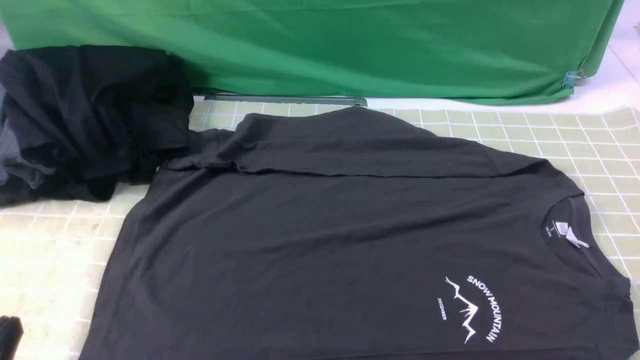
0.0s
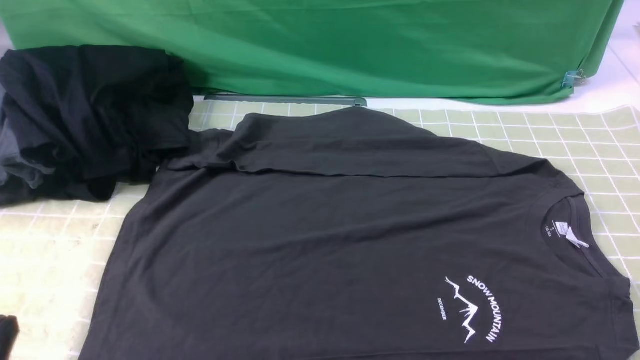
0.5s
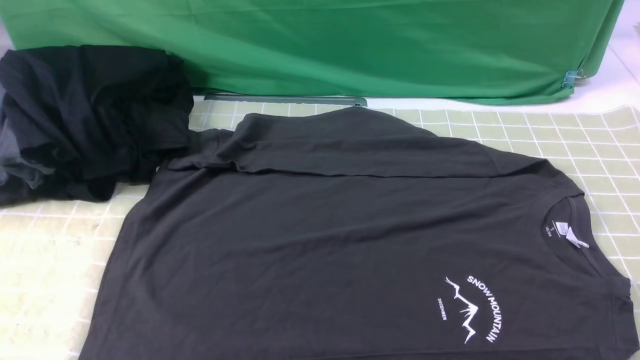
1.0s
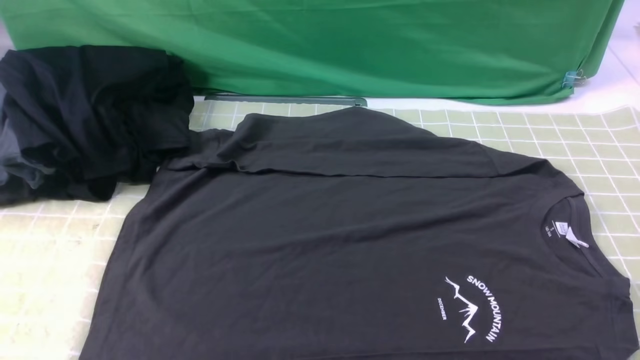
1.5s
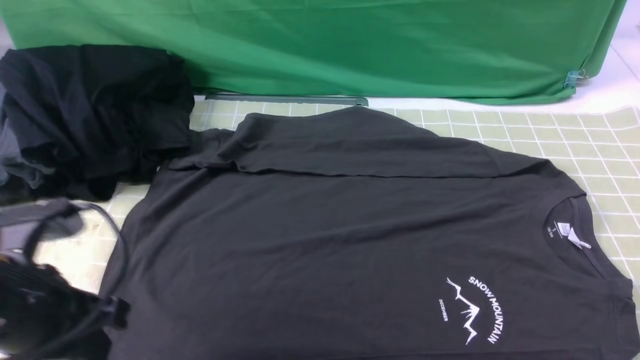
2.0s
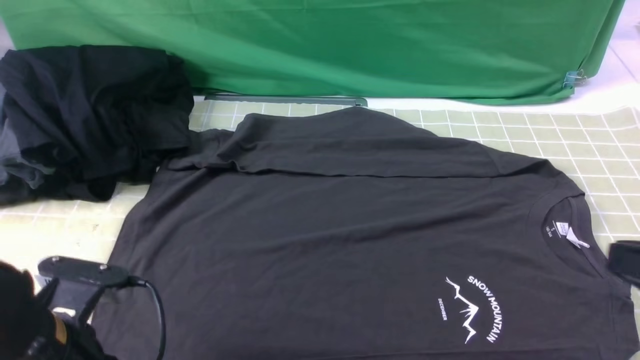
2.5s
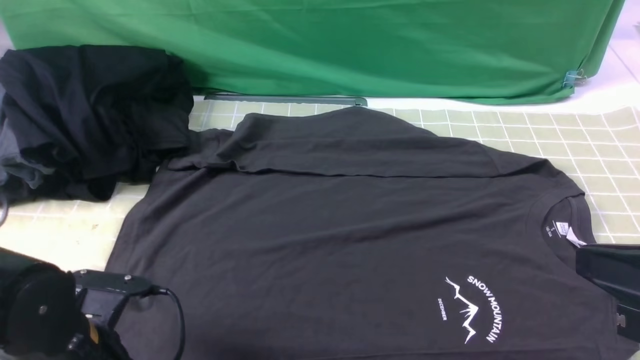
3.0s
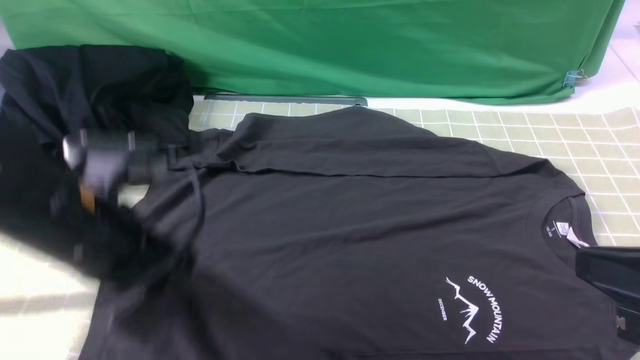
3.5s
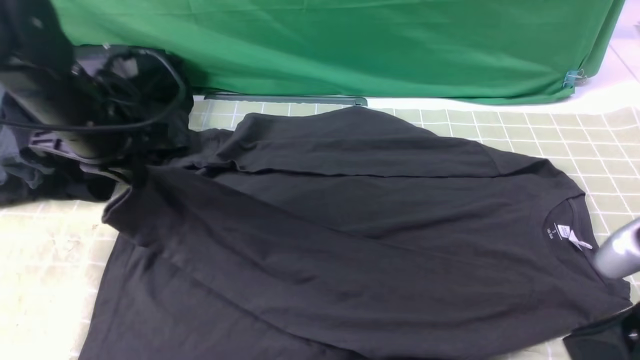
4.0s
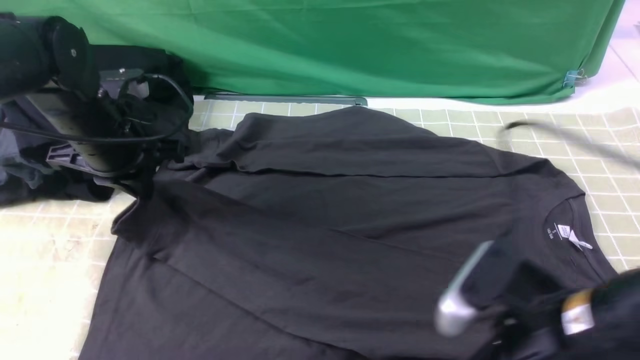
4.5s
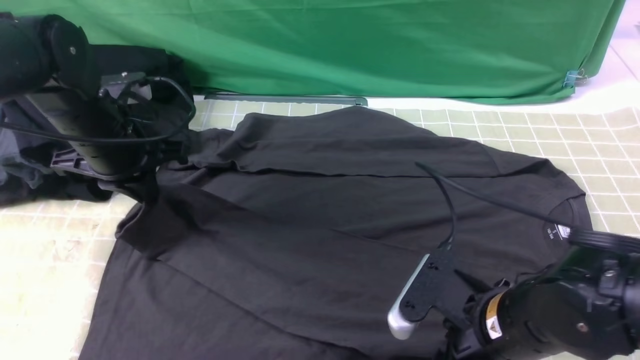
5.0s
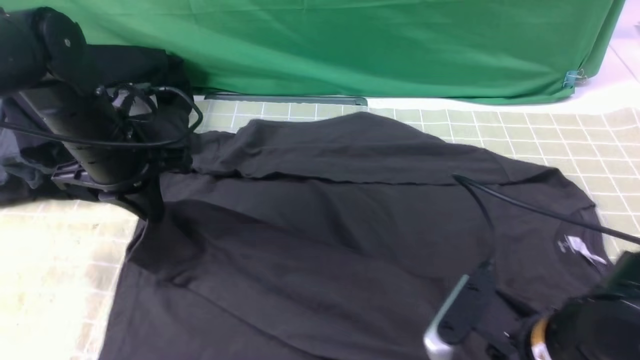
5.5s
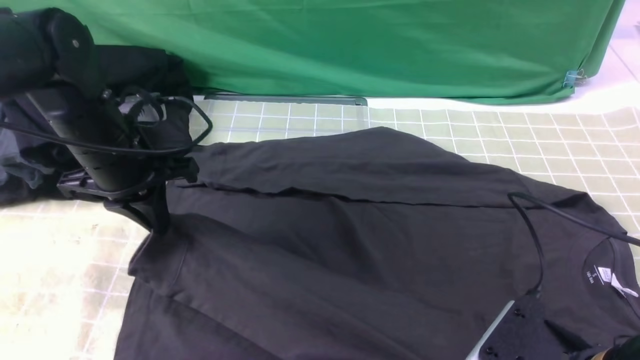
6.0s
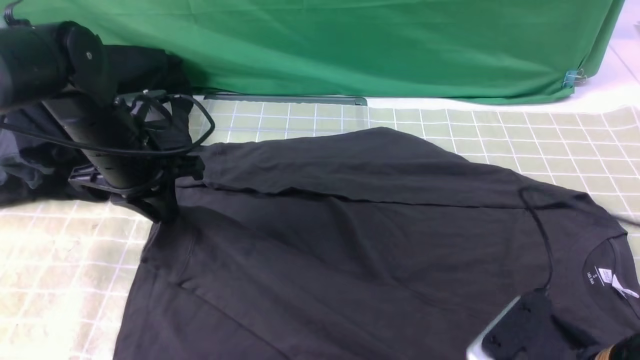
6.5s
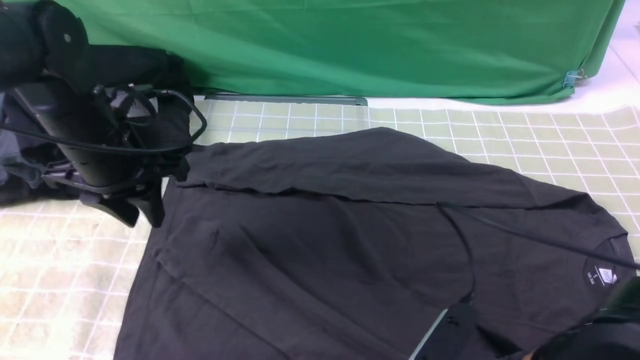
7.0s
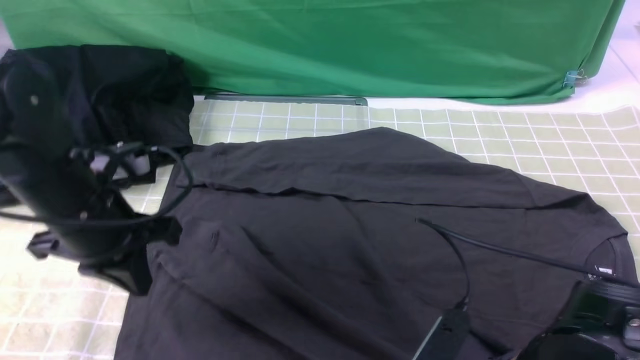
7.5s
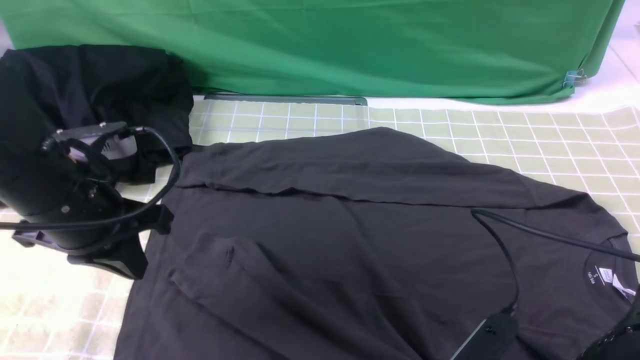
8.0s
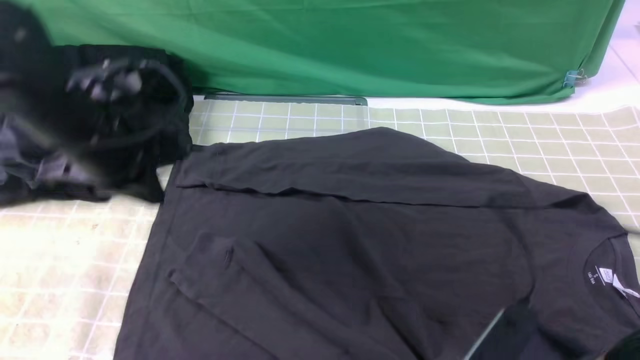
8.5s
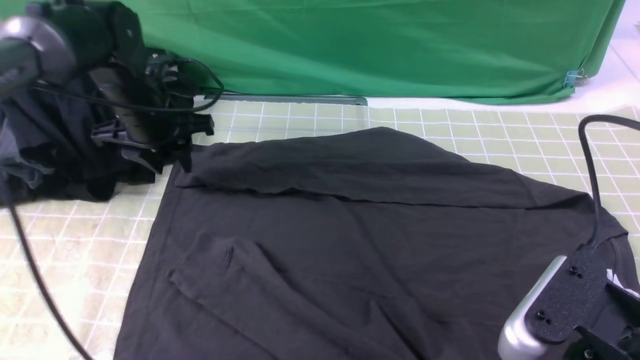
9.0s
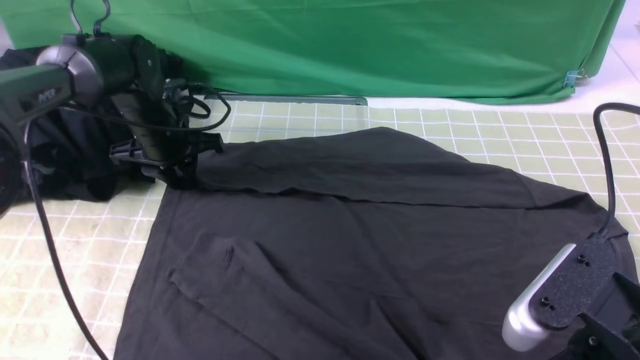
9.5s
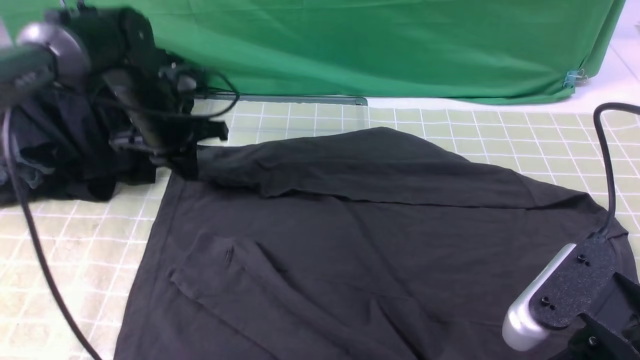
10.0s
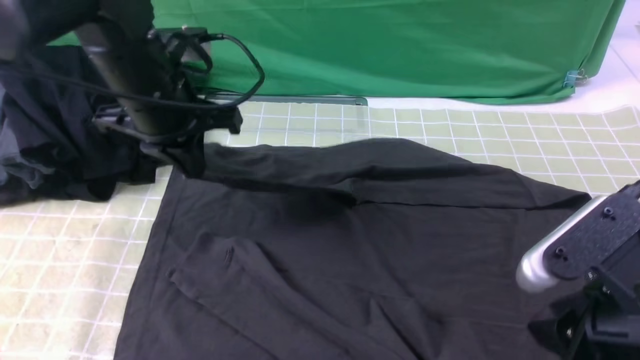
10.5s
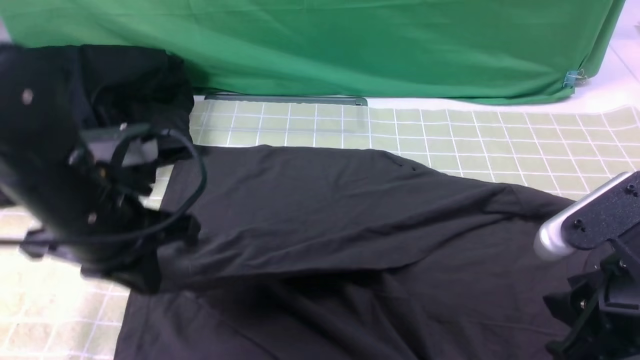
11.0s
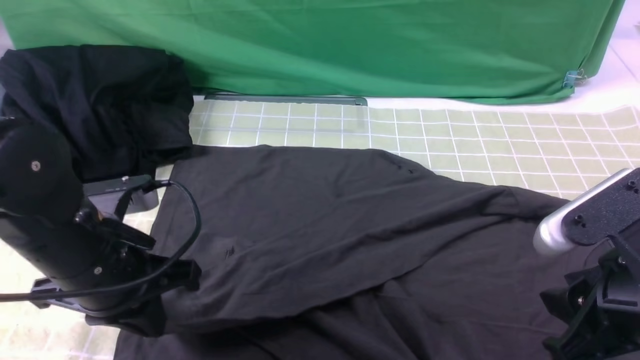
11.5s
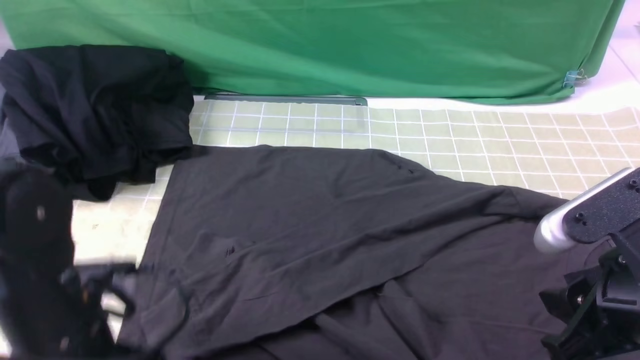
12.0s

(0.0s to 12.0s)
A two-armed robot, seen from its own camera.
Step, 0.0s - 3.0s: use the left arm to clamp the cuff closest to it.
Step, 3.5s - 6.5s: use the left arm to drag and place the cuff at the centered position on the left edge of the fabric.
Step, 7.0s - 9.5s: use the left arm to clamp the cuff farthest from it.
Step, 10.0s - 11.5s: use the left arm to drag and drop the cuff onto the cuff closest to the left arm.
0.0s - 2.0s: The left gripper travels forward and upward by some 15 cm. The right gripper shifts some 5 cm upward.
2.0s - 4.0s: The left gripper heads forward, covering approximately 20 cm, and opens, then closes again, while the right gripper is displaced to the left and forward by some 10 cm.
4.0s - 6.0s: The right gripper moves downward, roughly 10 cm, and opens, then closes once more.
6.0s - 8.0s: The right gripper opens, then closes again. The left gripper shifts about 10 cm backward, and opens and closes again.
8.0s - 10.0s: The left gripper goes roughly 20 cm forward, and opens, then closes once more. Meanwhile the right gripper travels upward by about 5 cm.
10.0s - 12.0s: The left gripper goes some 25 cm backward, and opens.

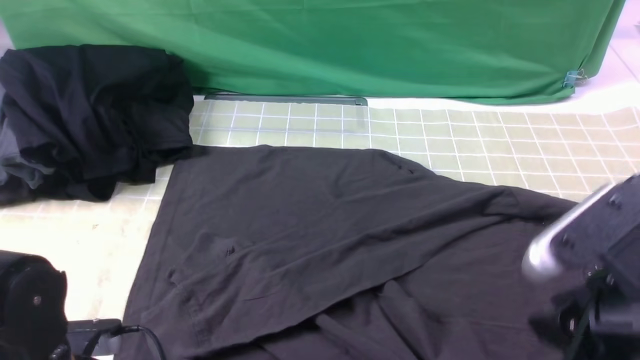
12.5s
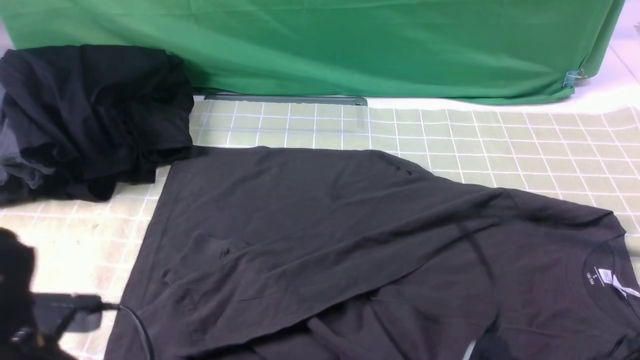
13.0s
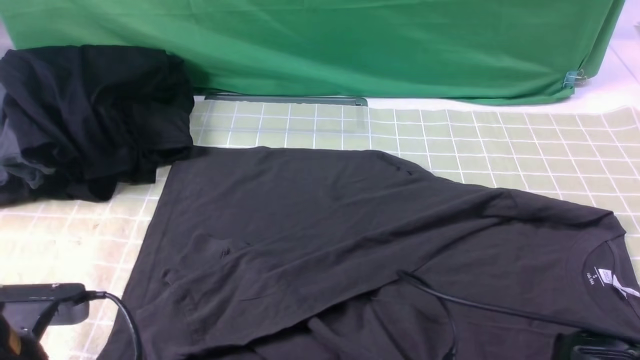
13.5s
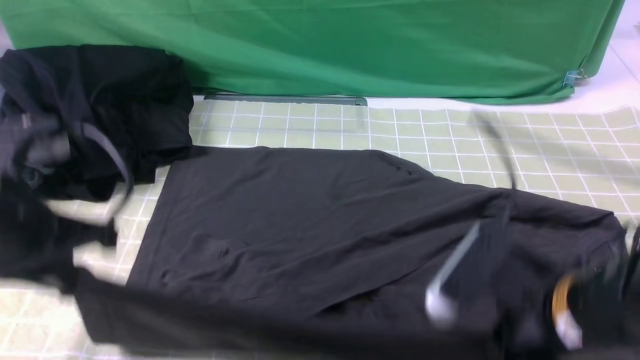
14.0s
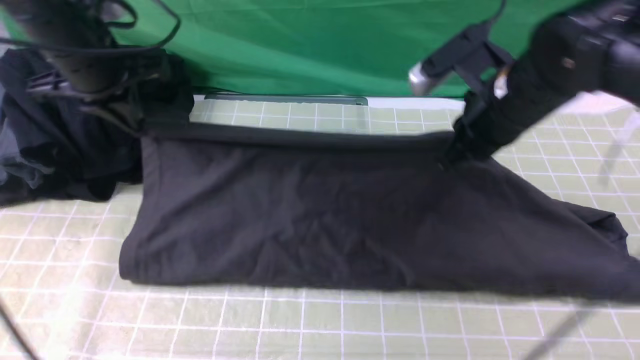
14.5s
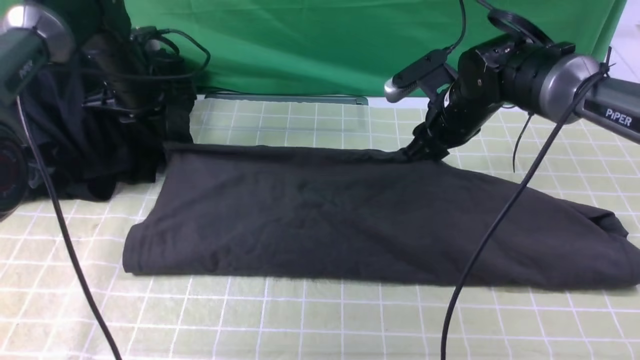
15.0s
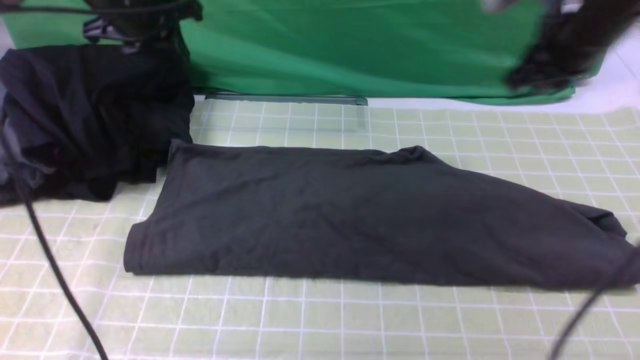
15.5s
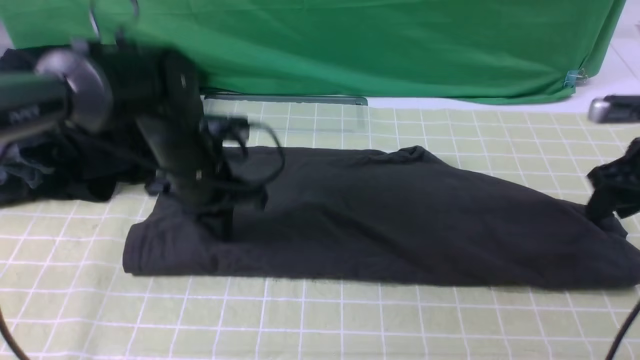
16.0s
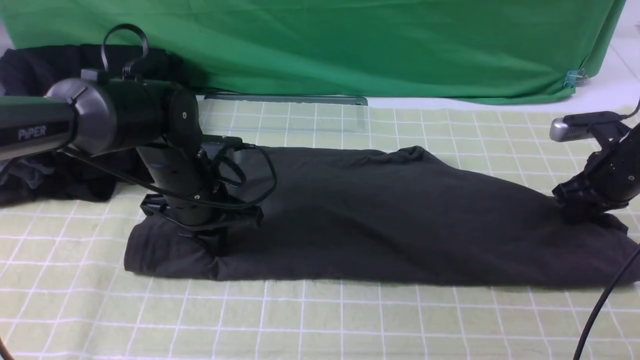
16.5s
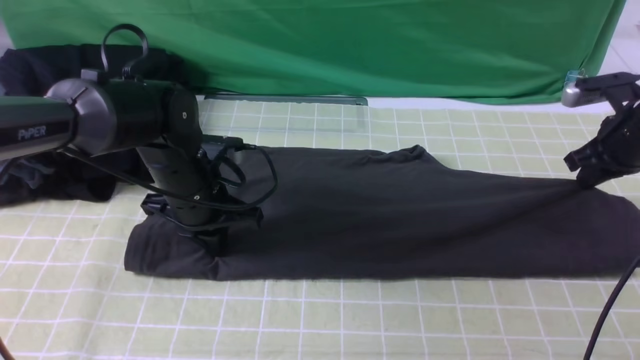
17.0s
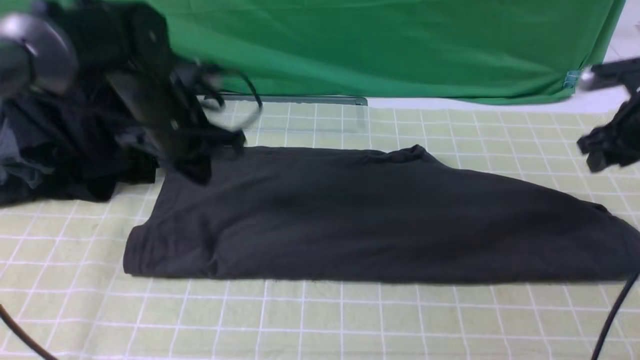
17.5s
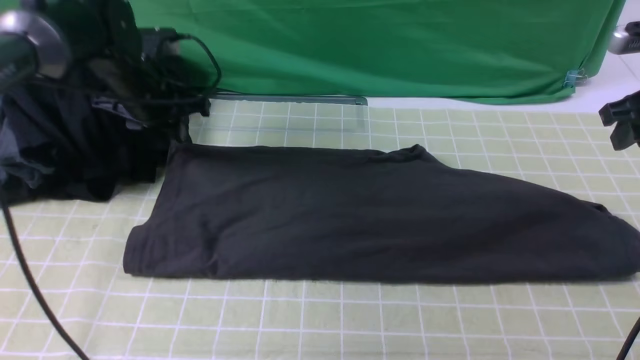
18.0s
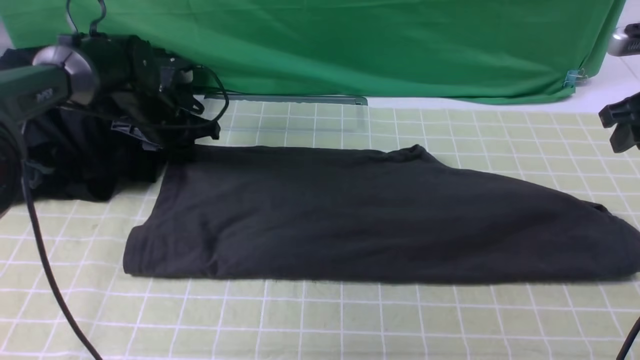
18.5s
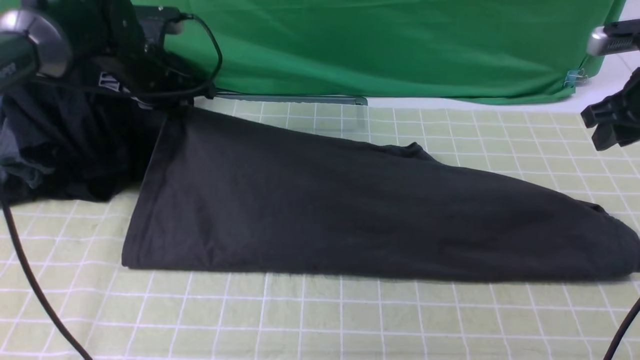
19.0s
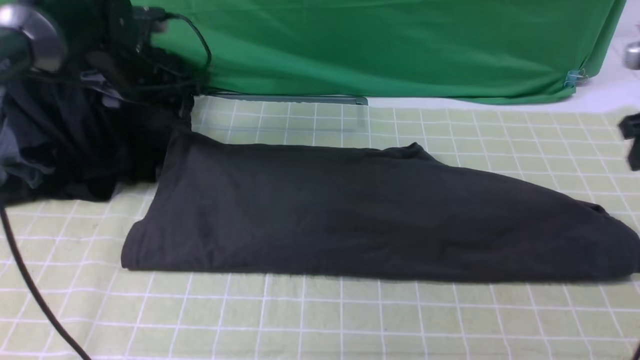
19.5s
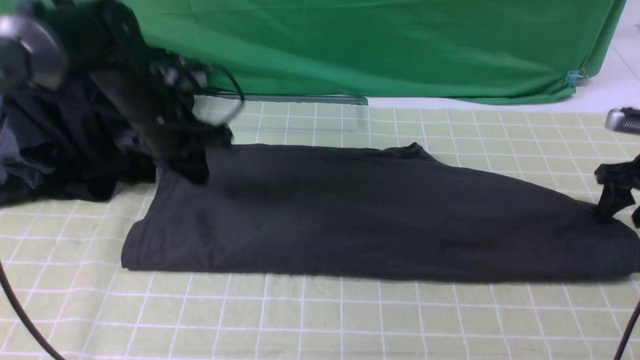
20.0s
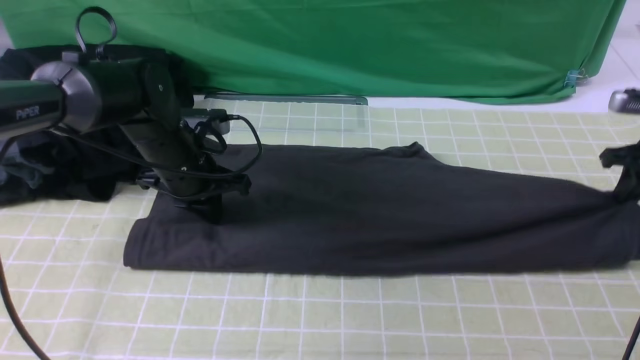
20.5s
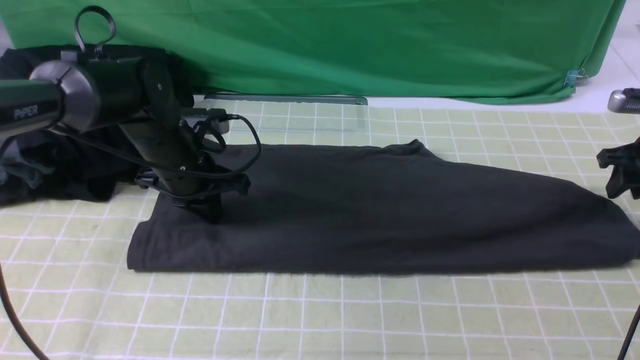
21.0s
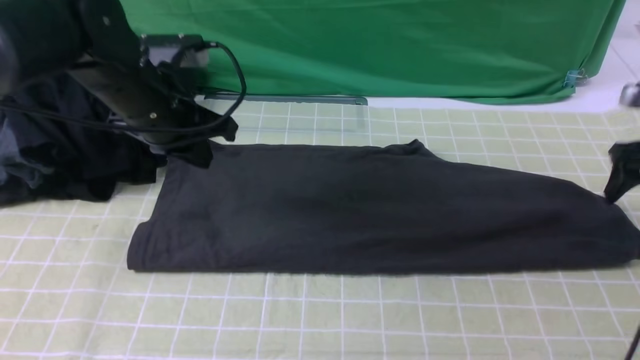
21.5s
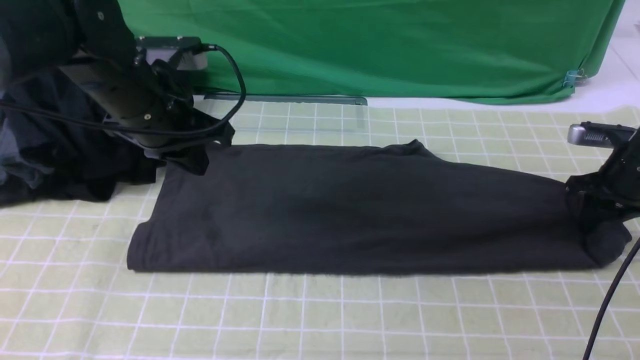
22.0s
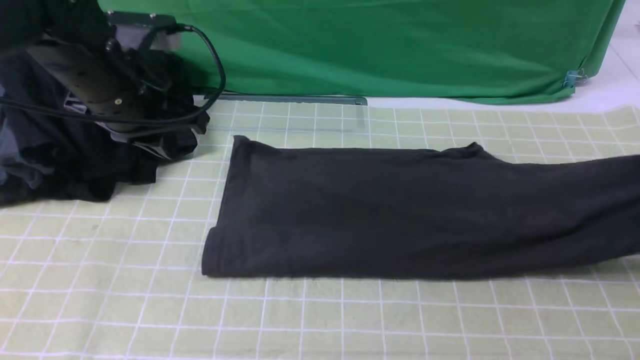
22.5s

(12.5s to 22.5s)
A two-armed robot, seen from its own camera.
Step, 12.5s - 13.5s: use both arms simultaneously to clamp the lower edge of the clothing fabric.
Step, 14.0s - 15.0s: use both arms to drag the lower edge of the fabric forward and fold it over the upper edge.
Step, 15.5s - 22.0s: use the right arm to clamp the right edge of the fabric.
12.5s - 14.5s: The left gripper heads forward and upward, covering approximately 30 cm, and closes. Meanwhile the right gripper is displaced forward by about 25 cm, and closes up.
14.5s - 16.5s: The right gripper moves to the right and downward, some 20 cm, and opens, then closes again, while the left gripper moves up and down over some 15 cm, changing direction 2 times, and opens, then closes again.
16.5s - 18.5s: The left gripper shifts about 15 cm forward and to the left, and opens up; the right gripper is displaced upward by some 10 cm.
18.5s - 20.5s: The right gripper heads downward and to the right, covering some 10 cm, and closes its fingers, while the left gripper goes about 10 cm backward and to the right, and closes.
20.5s - 22.5s: The left gripper travels upward by approximately 15 cm. The right gripper heads upward, covering some 5 cm, and opens, then closes again.
